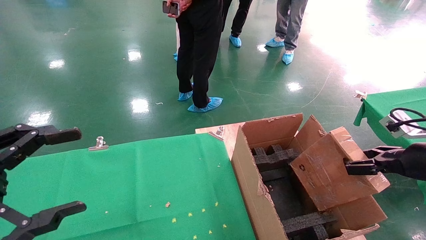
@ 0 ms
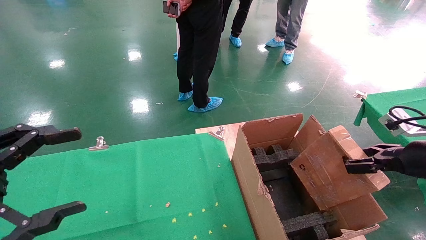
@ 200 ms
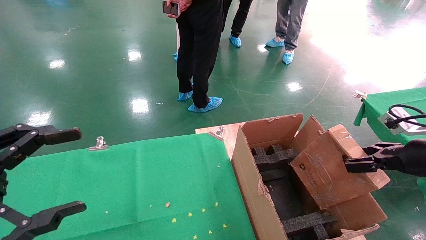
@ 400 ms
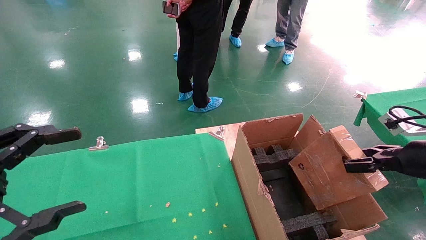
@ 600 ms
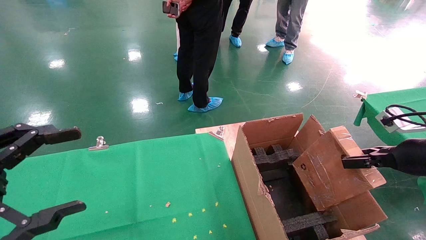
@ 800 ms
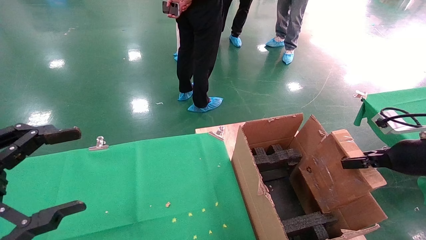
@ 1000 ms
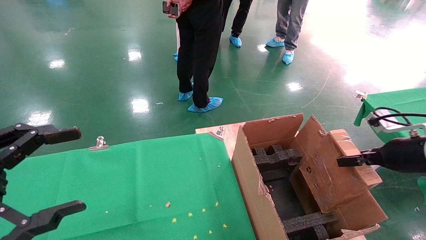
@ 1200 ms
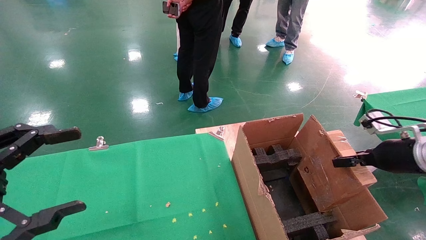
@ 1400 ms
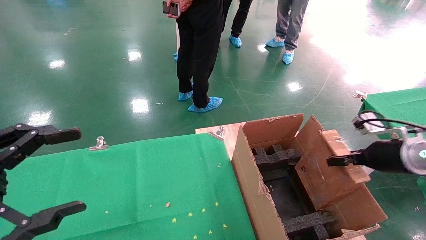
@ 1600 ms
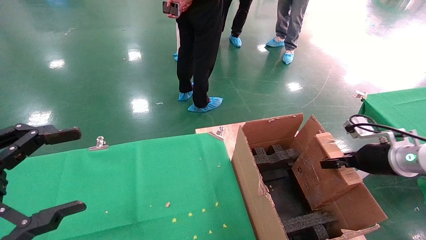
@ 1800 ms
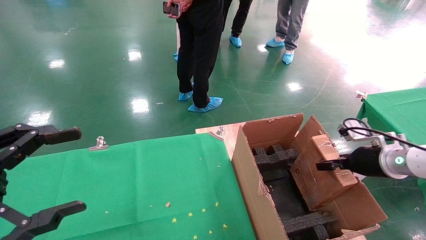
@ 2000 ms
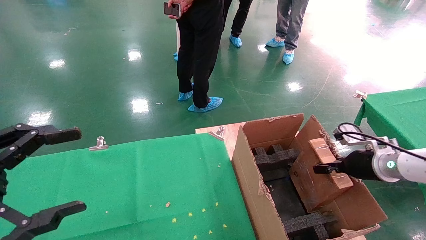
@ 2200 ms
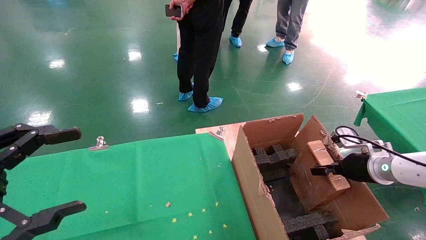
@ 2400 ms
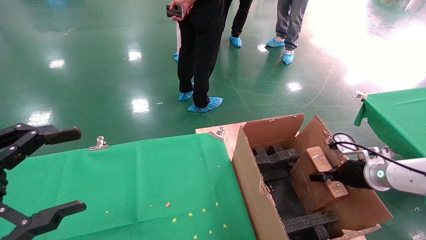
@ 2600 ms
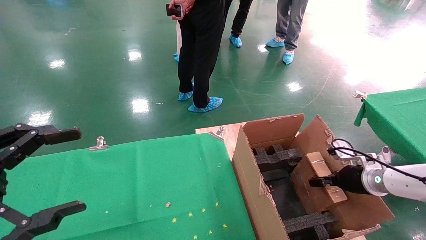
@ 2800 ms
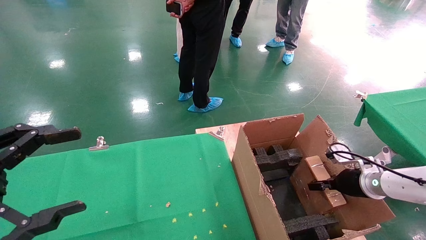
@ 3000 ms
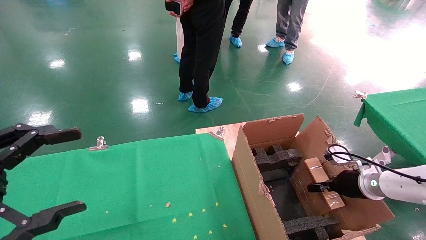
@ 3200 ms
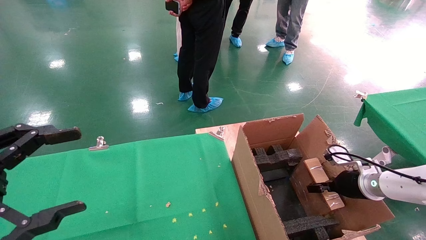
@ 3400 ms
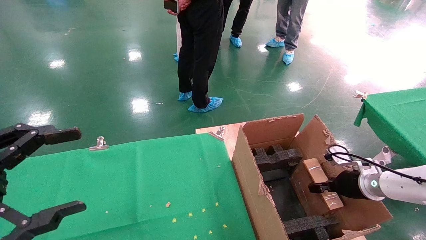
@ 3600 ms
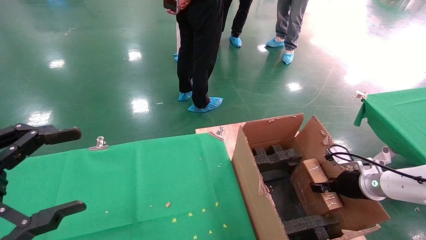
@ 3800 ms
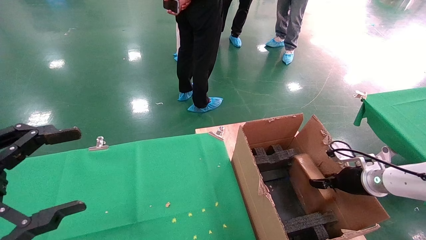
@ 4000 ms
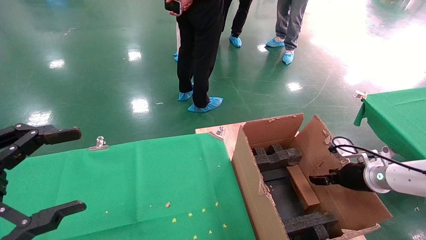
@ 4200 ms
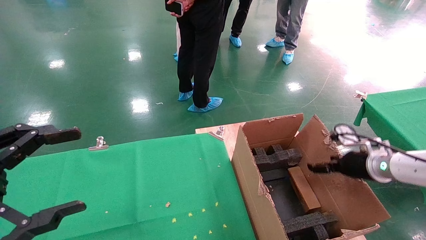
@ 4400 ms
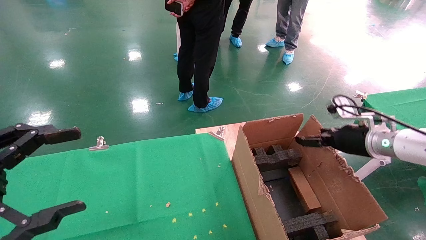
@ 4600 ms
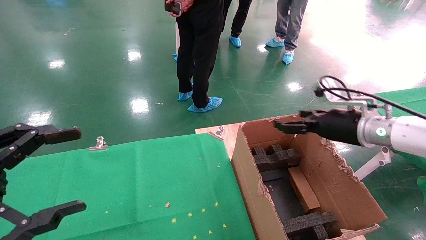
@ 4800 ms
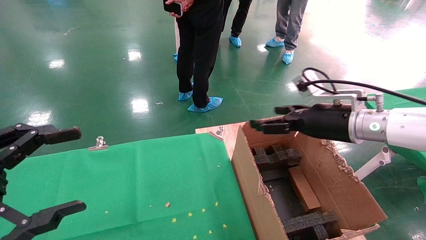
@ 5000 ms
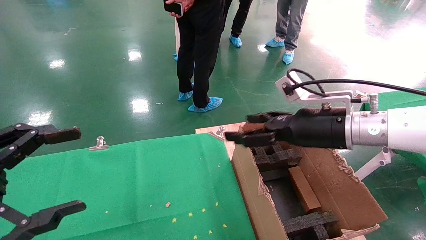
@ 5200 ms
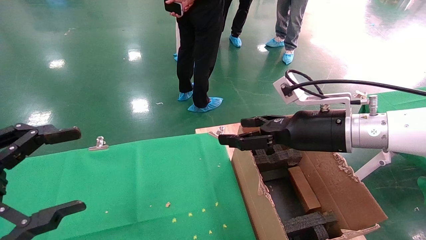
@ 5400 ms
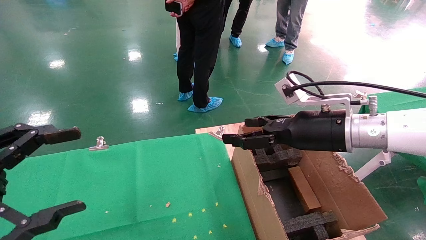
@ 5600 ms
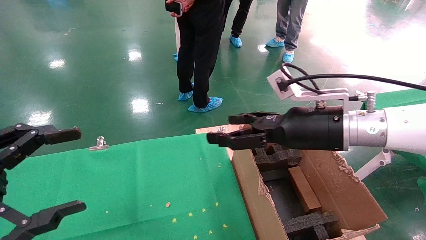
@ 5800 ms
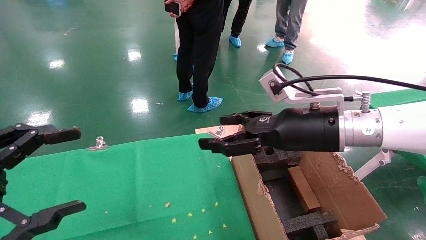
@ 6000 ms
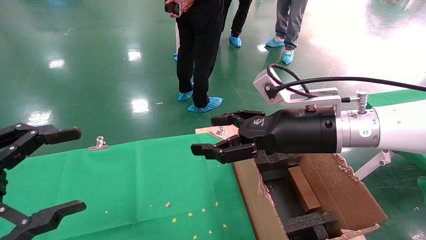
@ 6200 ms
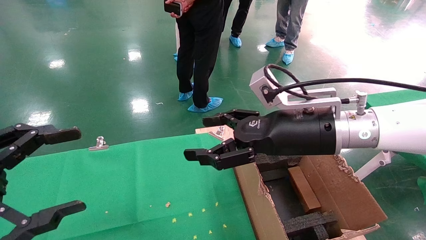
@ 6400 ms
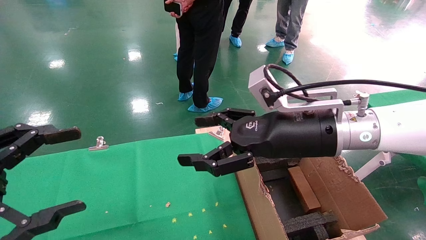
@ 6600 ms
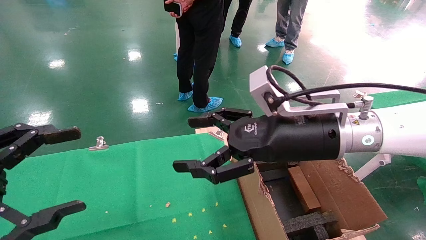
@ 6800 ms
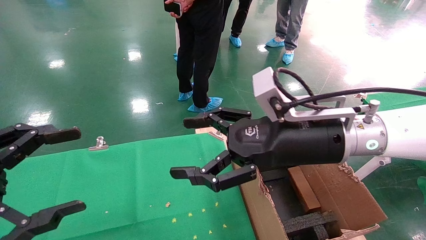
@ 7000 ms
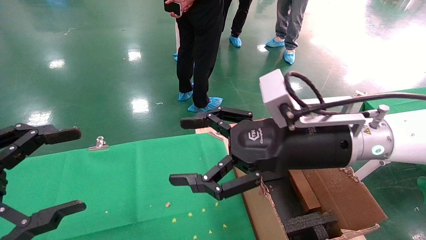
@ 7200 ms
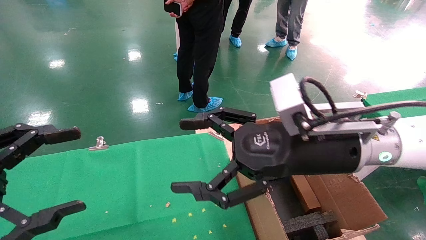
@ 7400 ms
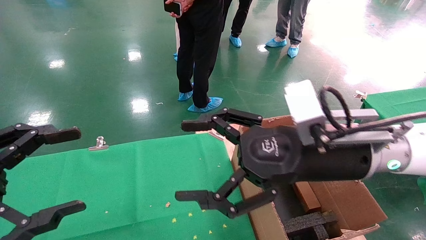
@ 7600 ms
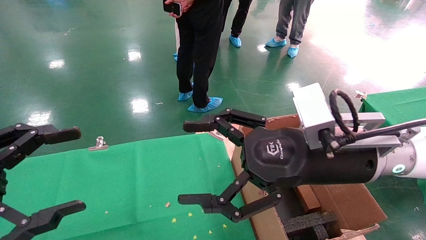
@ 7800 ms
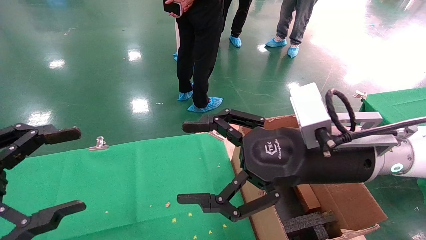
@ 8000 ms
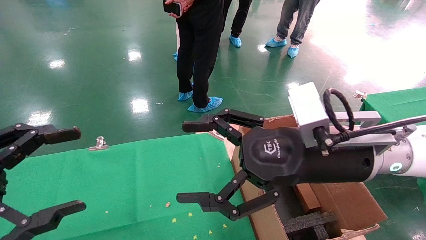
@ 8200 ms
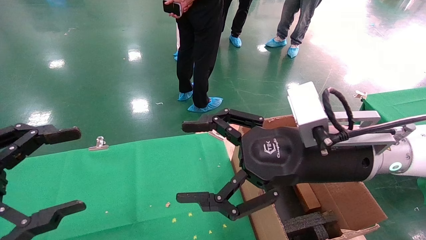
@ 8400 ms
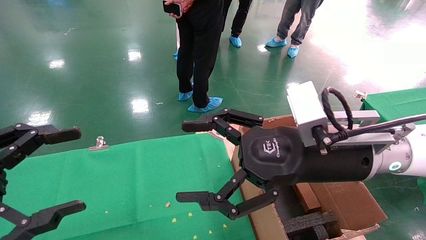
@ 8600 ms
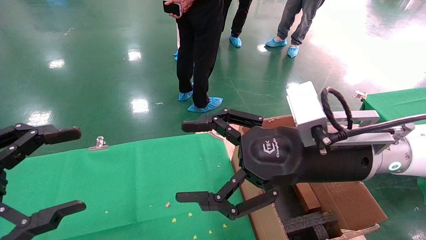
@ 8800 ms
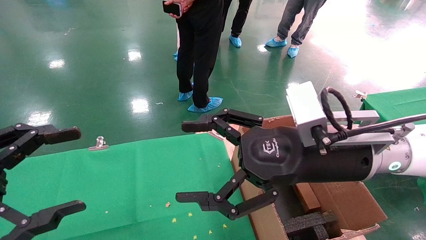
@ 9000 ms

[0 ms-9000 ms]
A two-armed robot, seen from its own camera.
Task of the whole recording: using a robotic arm to pick up a cardboard box and palace it the carton.
Step, 0 ms to 4600 ms: Place the mouse and the power cord paper box into the container.
0 ms to 1600 ms: The right gripper heads forward, covering approximately 5 cm.
1600 ms to 3000 ms: The right gripper is displaced downward and forward by approximately 10 cm.
3000 ms to 4400 ms: The right gripper travels upward by approximately 5 cm, and opens up.
4400 ms to 6000 ms: The right gripper heads to the left and upward, covering about 25 cm, and opens.
6000 ms to 7600 ms: The right gripper is displaced backward by about 5 cm.
7600 ms to 9000 ms: Both grippers stay put.
